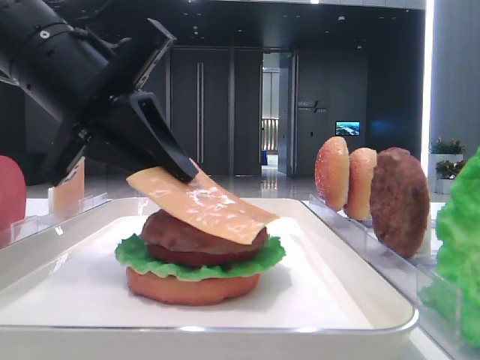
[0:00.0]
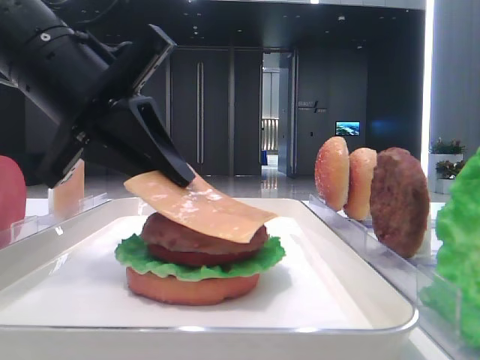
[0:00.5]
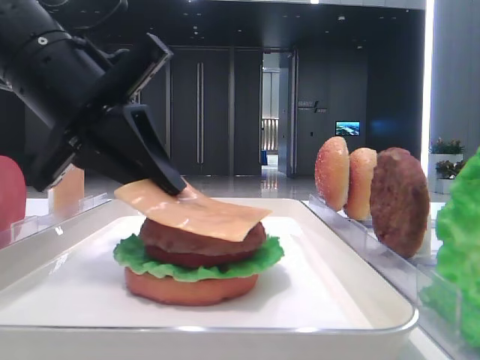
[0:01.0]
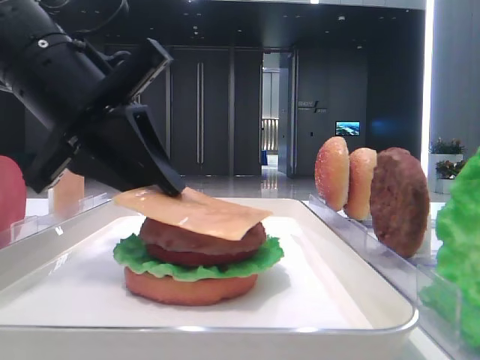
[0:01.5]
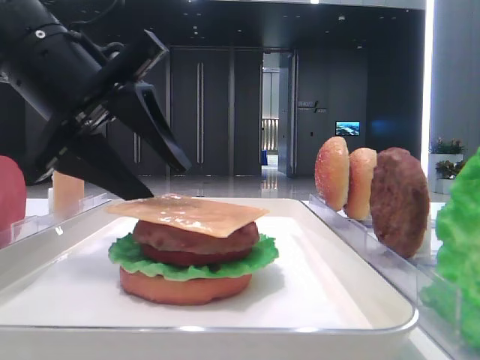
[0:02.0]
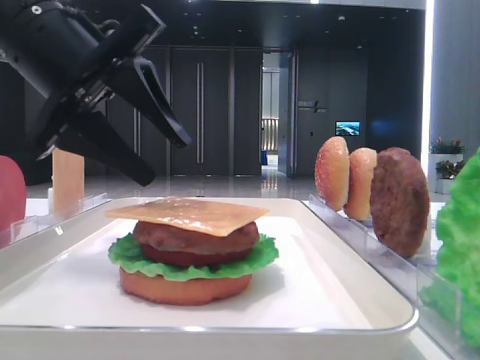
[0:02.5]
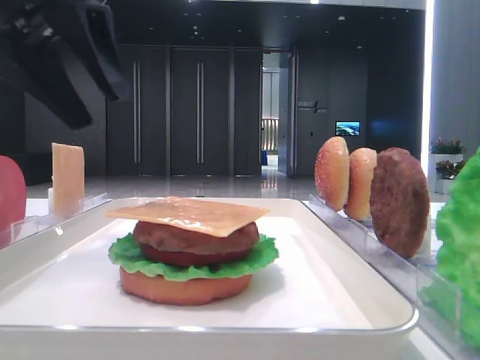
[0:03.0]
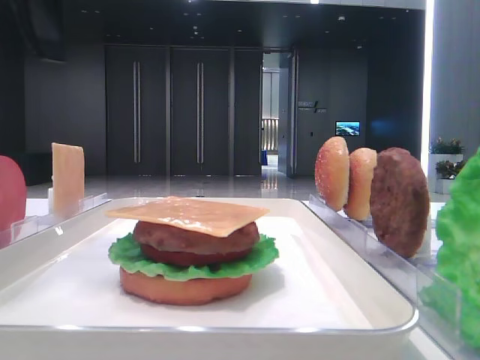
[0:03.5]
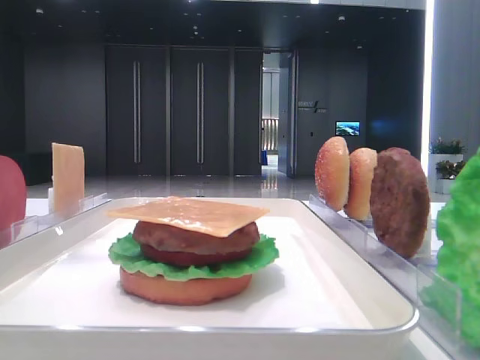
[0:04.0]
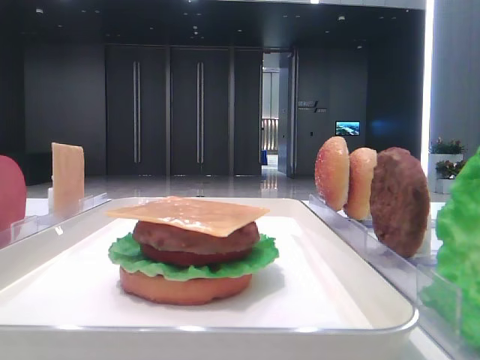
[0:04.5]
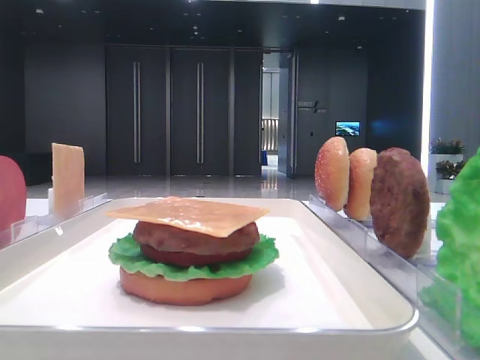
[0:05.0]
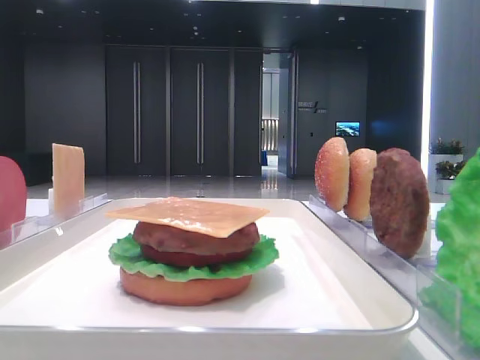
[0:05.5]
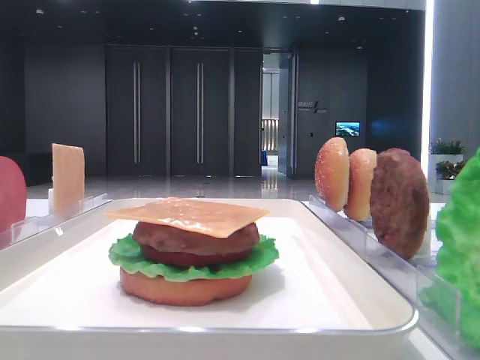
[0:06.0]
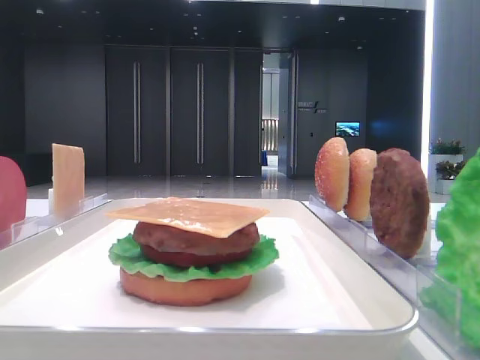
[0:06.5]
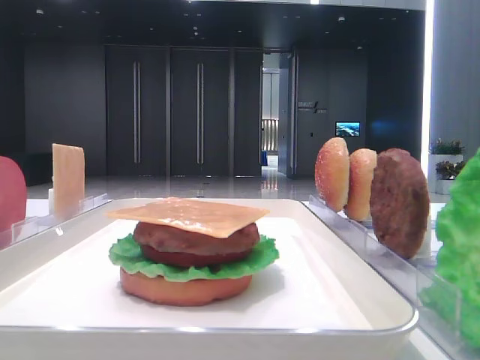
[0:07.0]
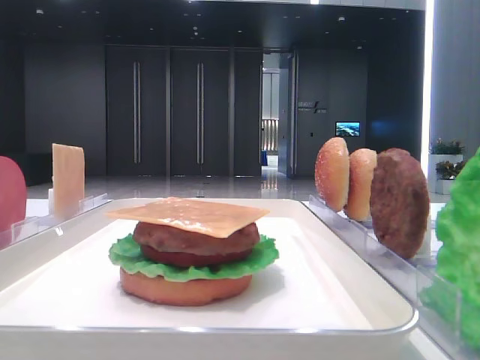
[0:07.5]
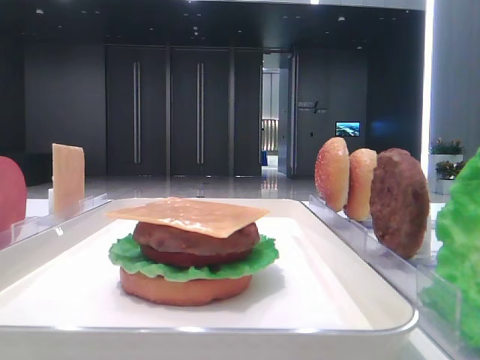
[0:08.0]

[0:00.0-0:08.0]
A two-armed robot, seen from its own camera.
Step, 0:00.0 to 0:02.0: Place the cheese slice on the patty with the left hand.
0:00.0 to 0:02.0: The left gripper opens up.
0:02.0 to 0:04.0: The left gripper shifts approximately 15 cm upward and to the left, and opens up.

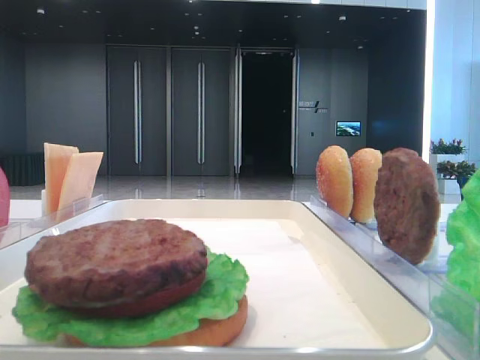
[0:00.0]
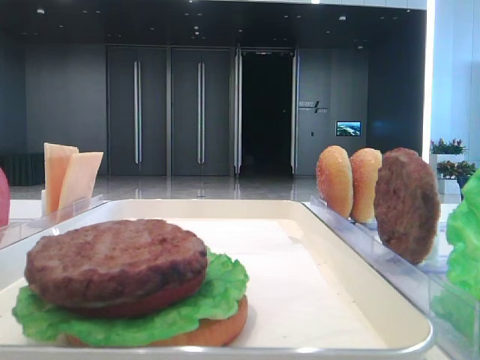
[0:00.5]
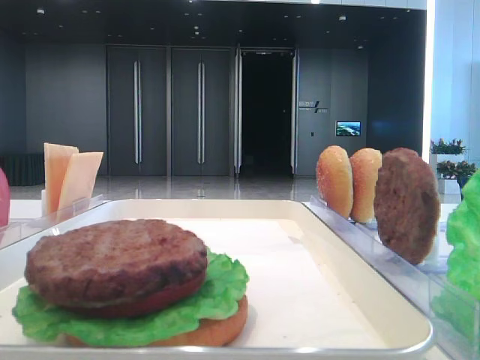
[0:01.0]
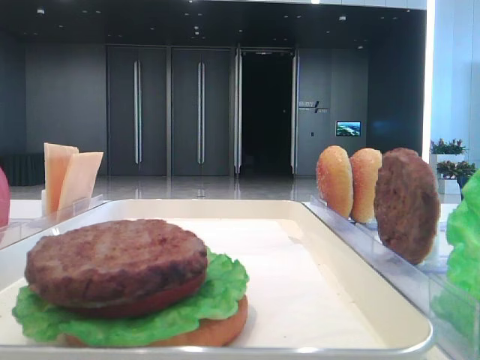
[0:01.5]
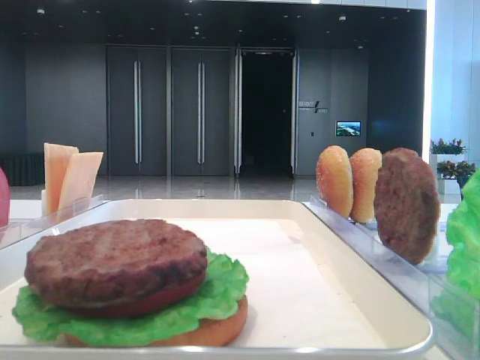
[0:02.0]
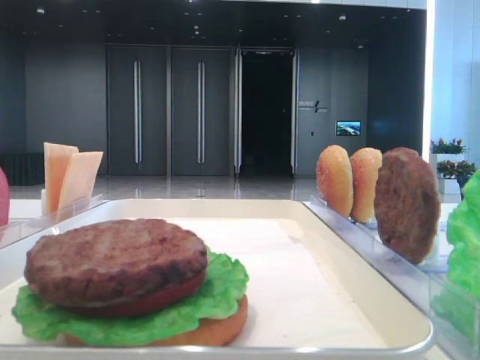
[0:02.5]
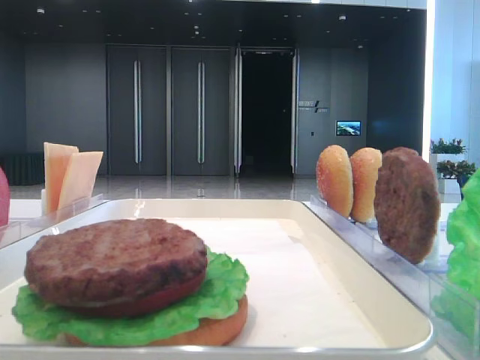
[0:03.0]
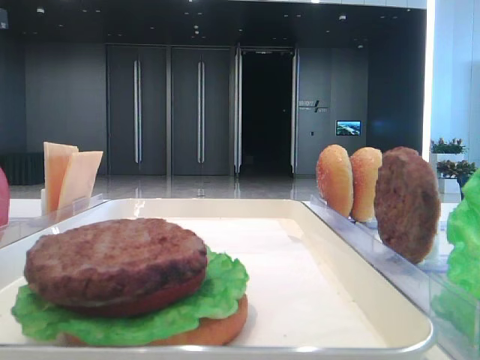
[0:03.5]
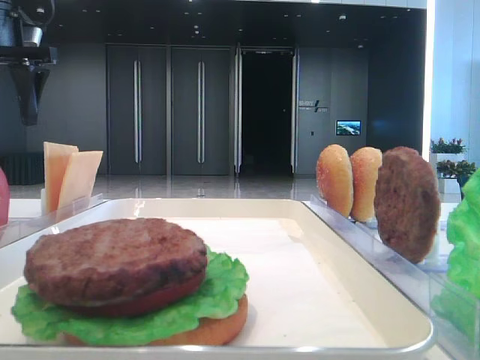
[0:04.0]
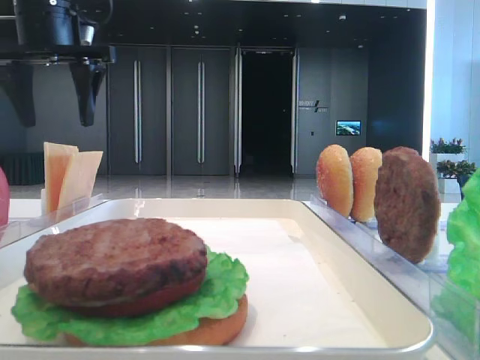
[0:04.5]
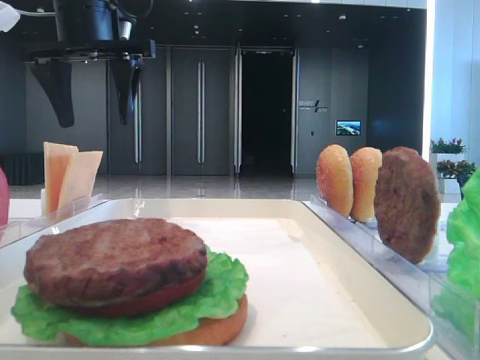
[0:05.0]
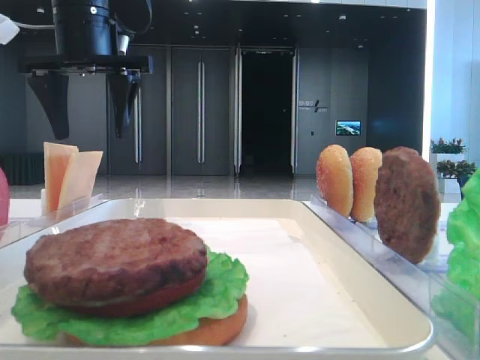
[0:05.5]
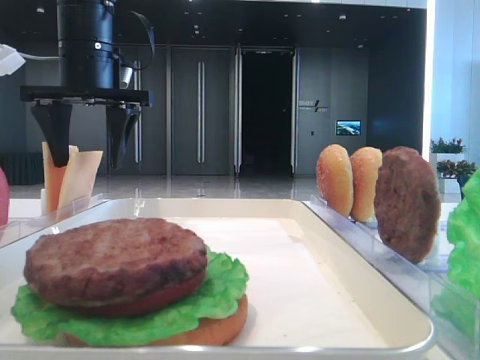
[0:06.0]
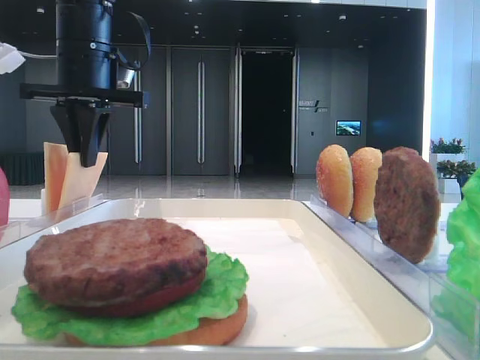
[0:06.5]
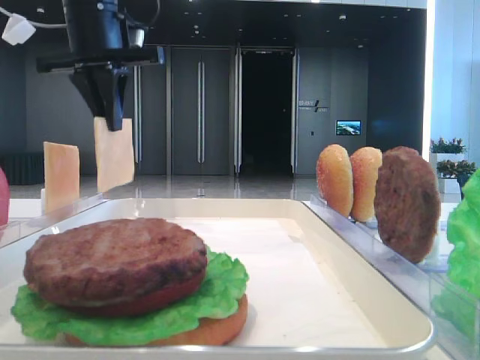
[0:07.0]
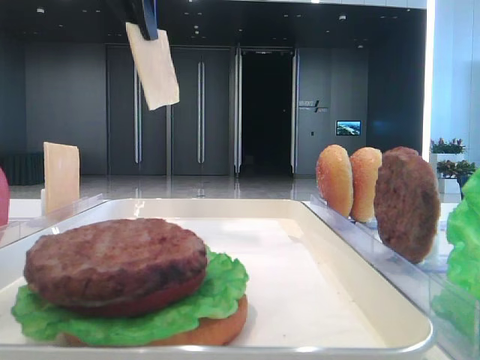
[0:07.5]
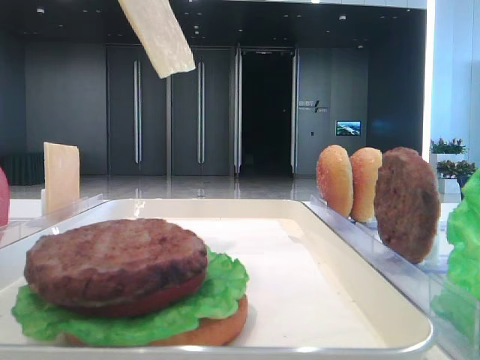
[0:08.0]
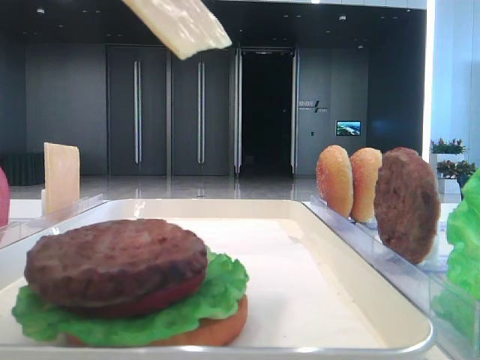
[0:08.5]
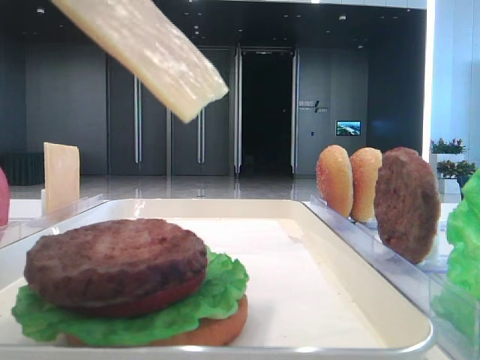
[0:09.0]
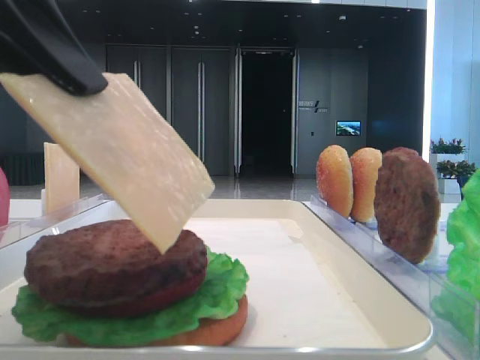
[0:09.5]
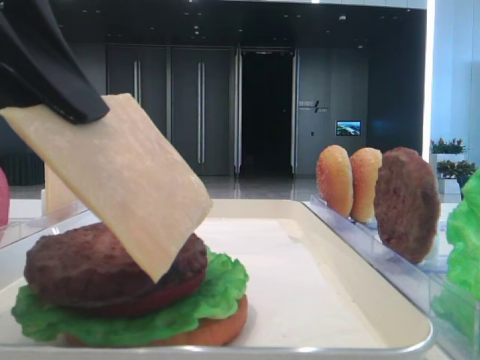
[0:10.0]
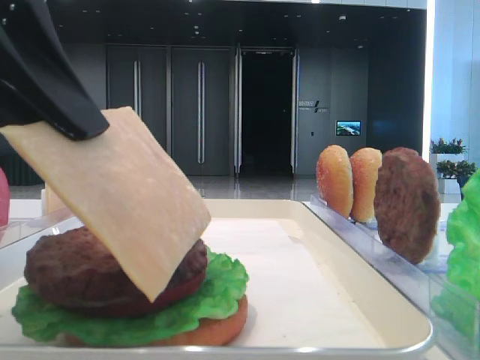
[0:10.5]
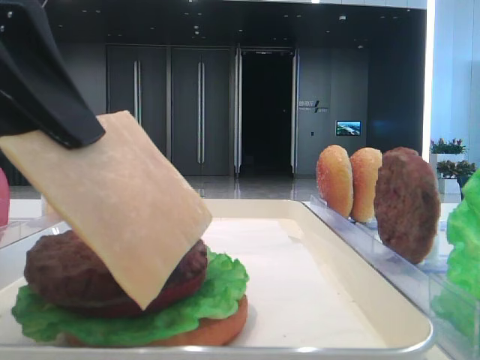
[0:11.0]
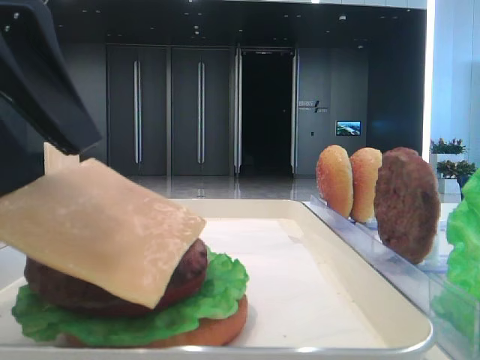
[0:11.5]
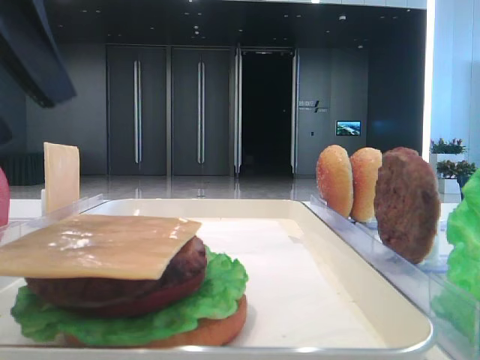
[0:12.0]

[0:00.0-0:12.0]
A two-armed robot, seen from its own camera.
Step, 0:00.0 to 0:06.5: Pick up the cheese slice with the left hand.
Step, 0:07.0 to 0:11.5: Place the cheese slice on the patty with the left hand.
0:02.0 to 0:04.0: The left gripper moves forward, approximately 40 cm.
0:04.0 to 0:06.0: The left gripper moves to the right, about 10 cm.
0:06.0 to 0:08.0: The left gripper is displaced backward and upward by about 20 cm, and closes up.
0:08.0 to 0:10.0: The left gripper is displaced downward and backward by some 20 cm.
0:10.0 to 0:12.0: The left gripper opens.

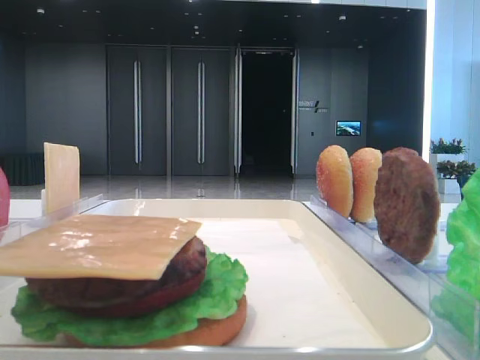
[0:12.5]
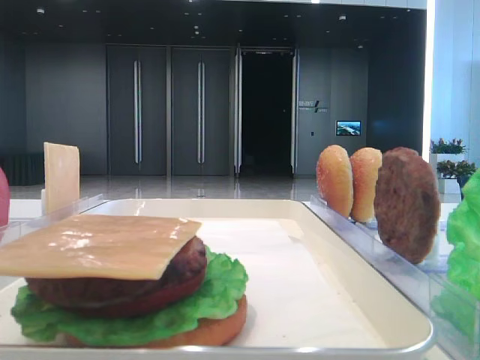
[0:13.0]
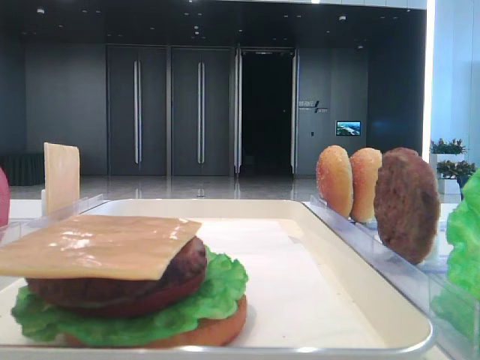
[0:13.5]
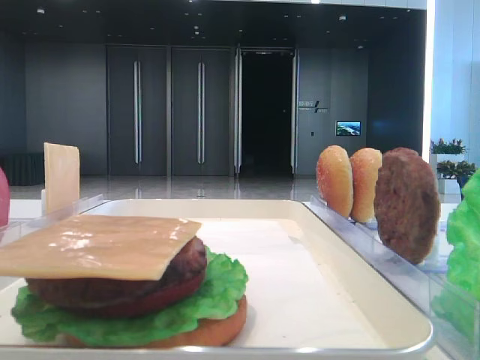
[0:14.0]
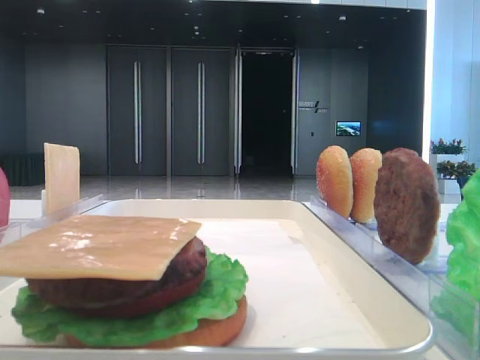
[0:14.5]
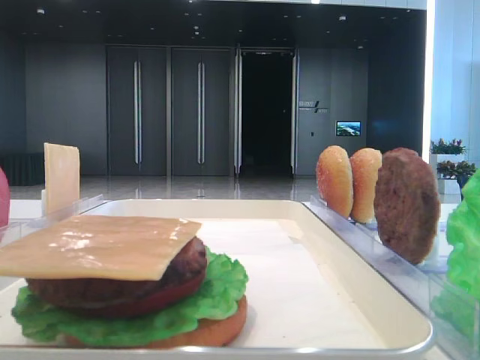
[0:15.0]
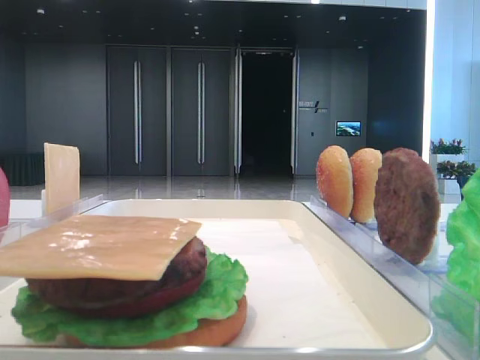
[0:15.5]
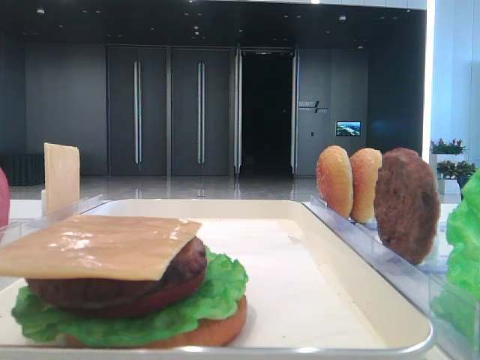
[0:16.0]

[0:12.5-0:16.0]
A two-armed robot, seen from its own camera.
0:12.5 to 0:14.5: The left gripper is displaced backward and to the left by some 20 cm.
0:14.5 to 0:16.0: Neither gripper changes place.

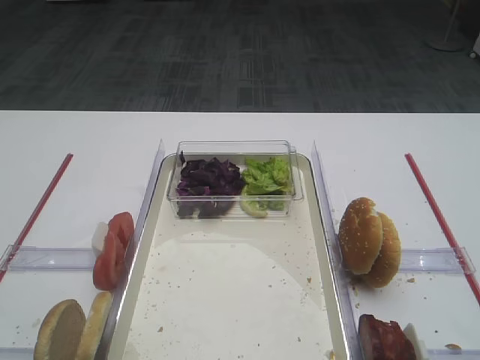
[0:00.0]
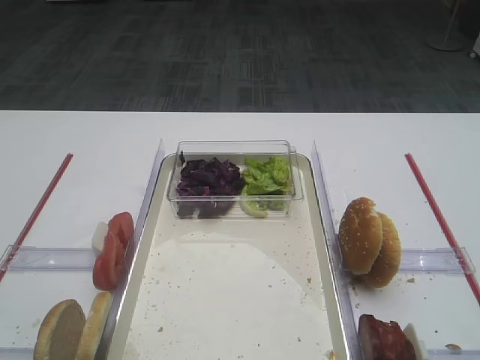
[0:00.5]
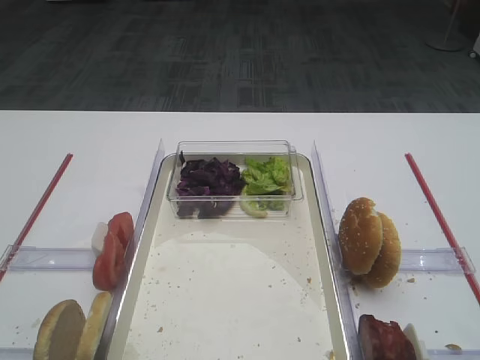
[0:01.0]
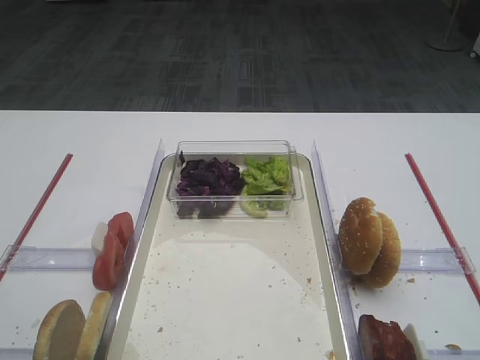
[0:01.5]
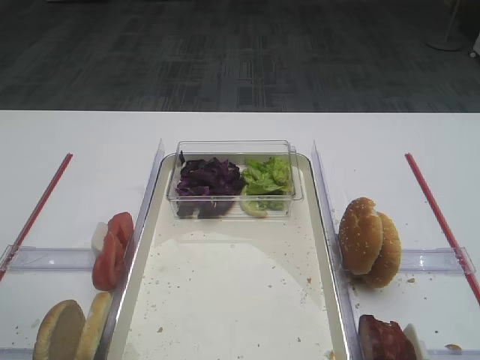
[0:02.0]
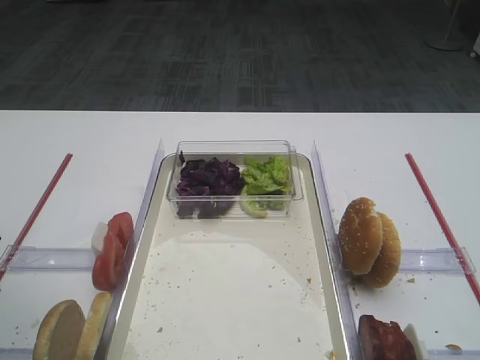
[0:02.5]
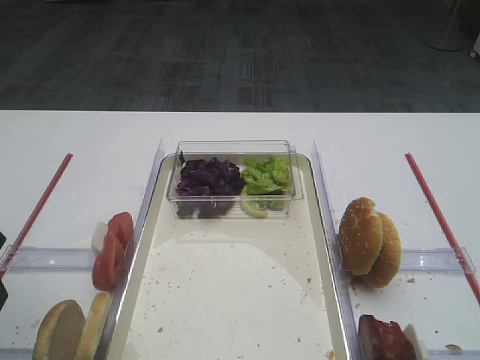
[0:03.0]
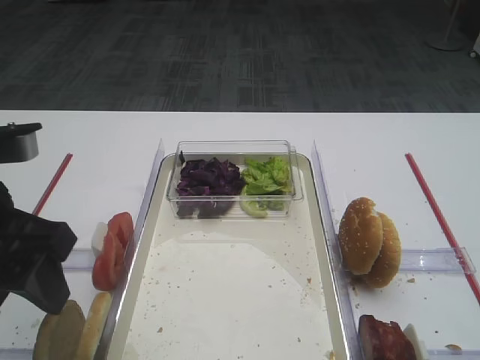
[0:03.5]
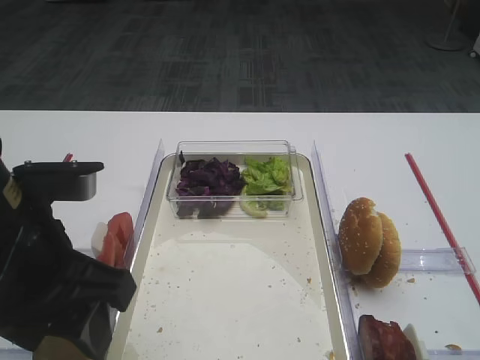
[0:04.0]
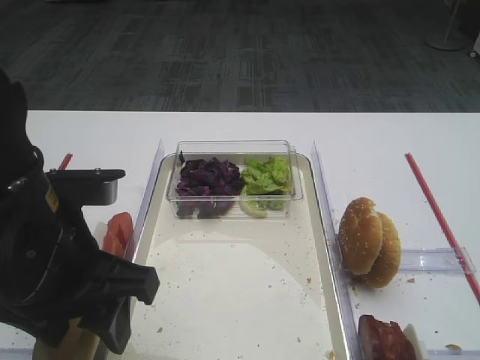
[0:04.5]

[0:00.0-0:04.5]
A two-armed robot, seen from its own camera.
0:02.0 to 0:04.5: The left gripper goes roughly 15 cm to the right.
